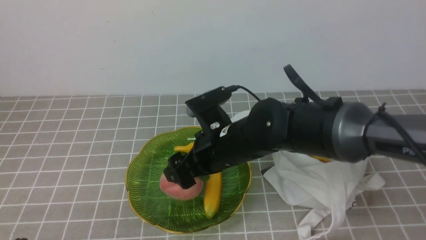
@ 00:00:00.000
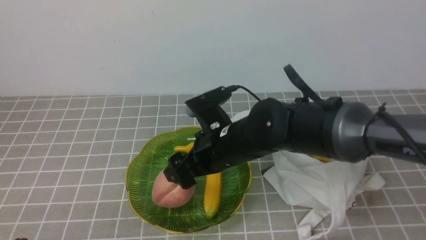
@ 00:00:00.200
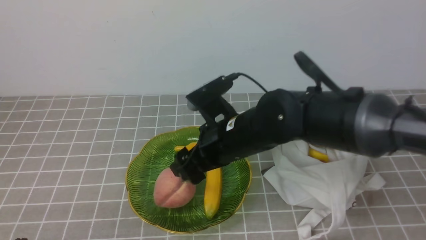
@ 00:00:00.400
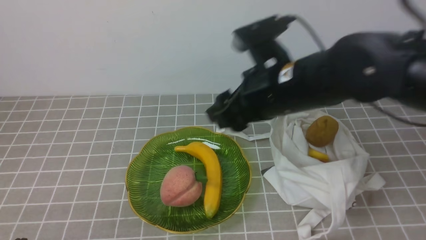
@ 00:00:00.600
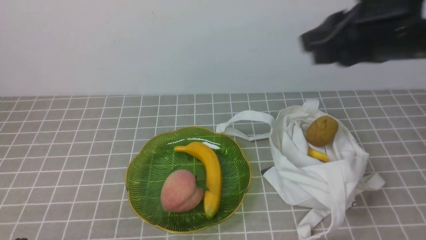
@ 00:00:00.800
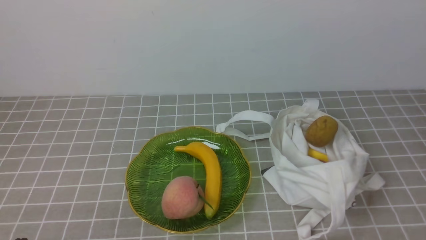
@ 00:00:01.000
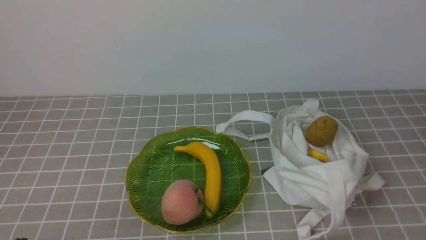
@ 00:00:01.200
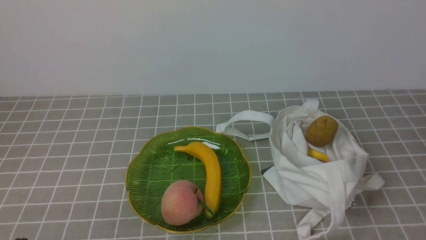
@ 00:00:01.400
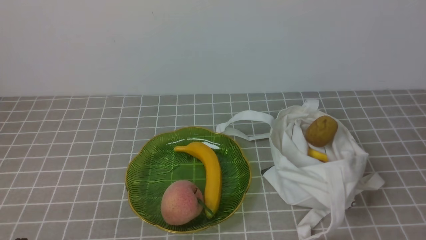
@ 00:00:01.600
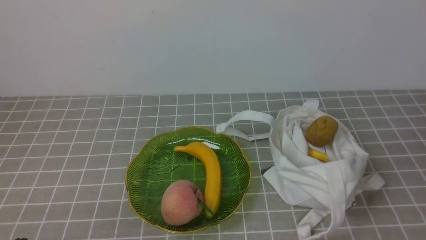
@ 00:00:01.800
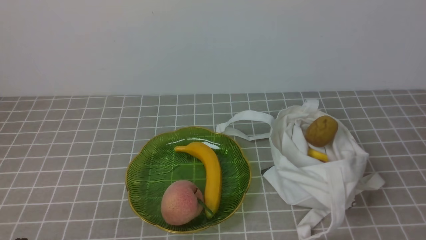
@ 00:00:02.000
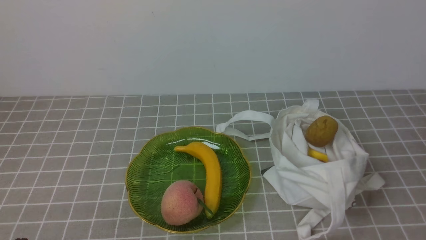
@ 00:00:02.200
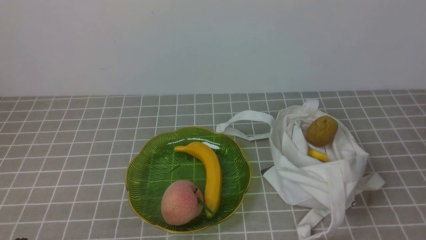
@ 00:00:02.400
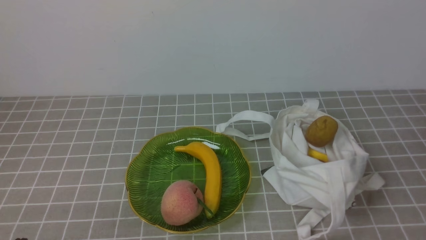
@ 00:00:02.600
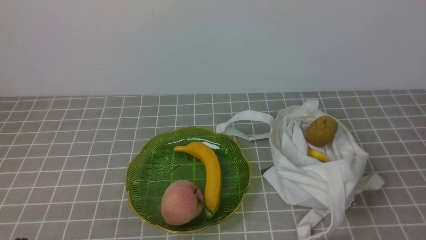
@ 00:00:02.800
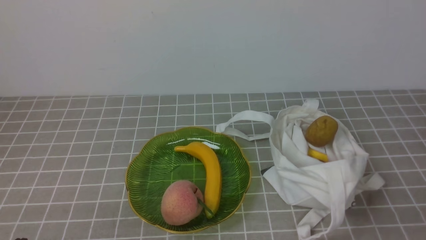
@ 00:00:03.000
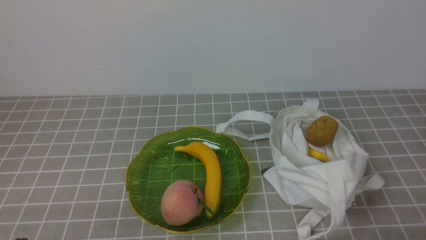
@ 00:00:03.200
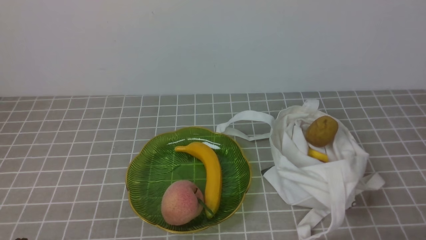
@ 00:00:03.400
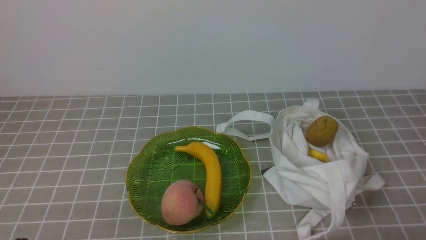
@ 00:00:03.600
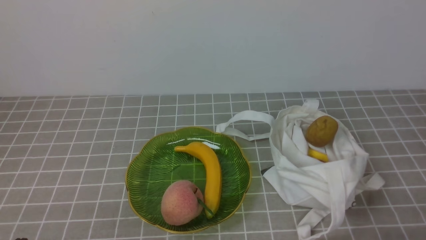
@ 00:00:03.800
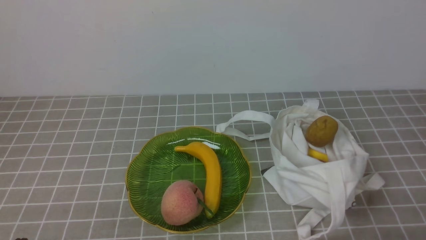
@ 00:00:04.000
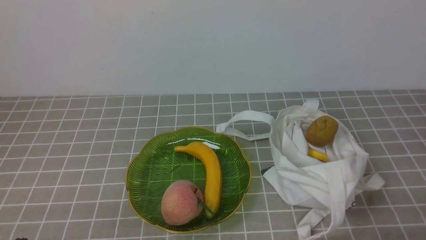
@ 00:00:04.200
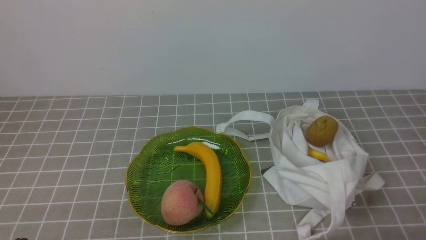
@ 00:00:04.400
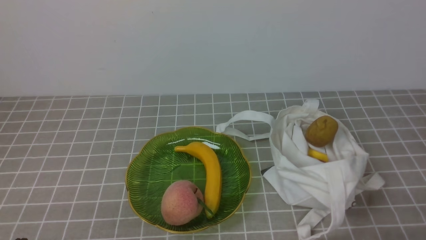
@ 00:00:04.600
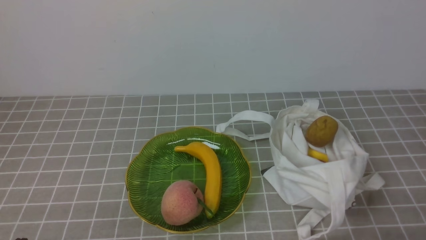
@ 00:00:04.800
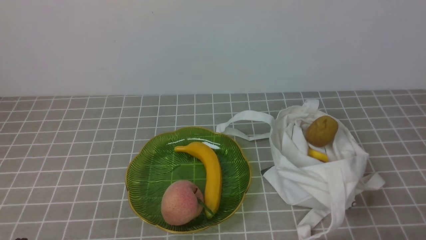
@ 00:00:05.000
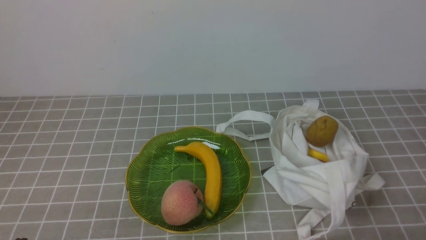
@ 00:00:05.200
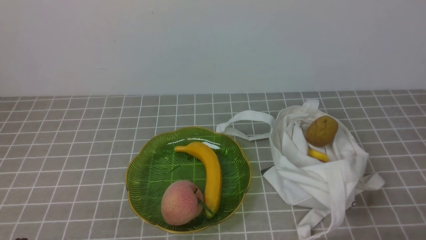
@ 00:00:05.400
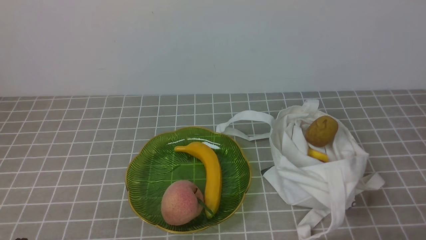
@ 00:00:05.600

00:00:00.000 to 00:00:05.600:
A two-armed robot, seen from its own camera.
00:00:00.000 to 00:00:01.400: The right gripper heads to the right, backward and upward, covering about 40 cm, and closes up.
00:00:04.200 to 00:00:05.600: The two grippers keep their place.
